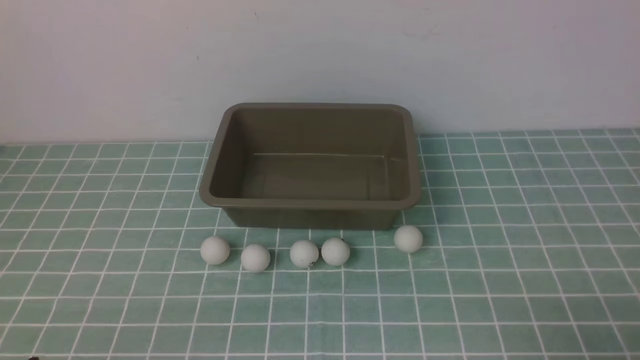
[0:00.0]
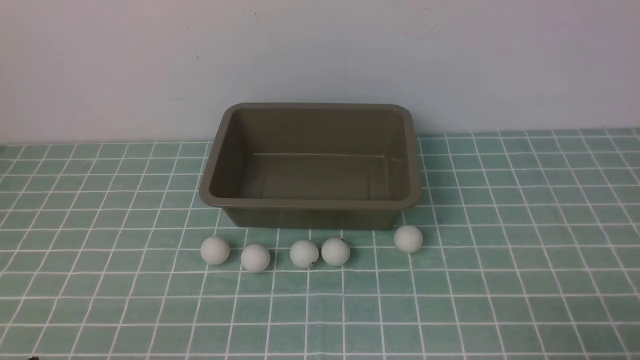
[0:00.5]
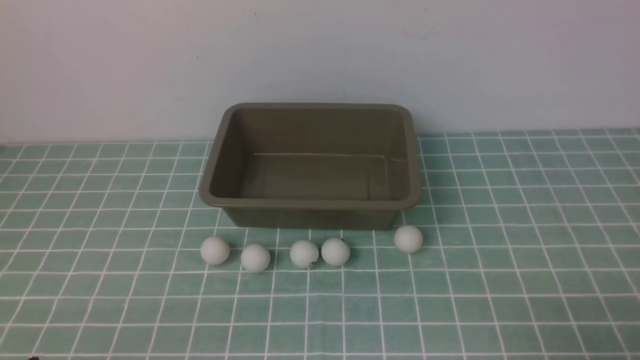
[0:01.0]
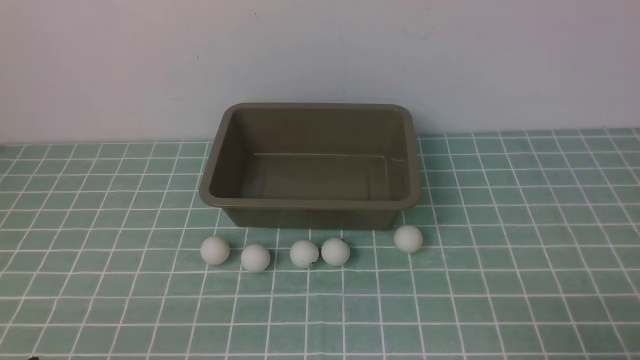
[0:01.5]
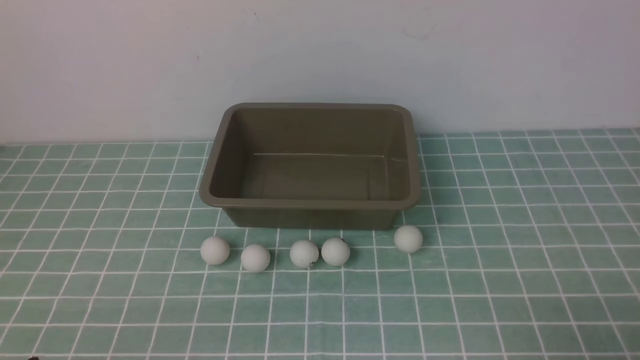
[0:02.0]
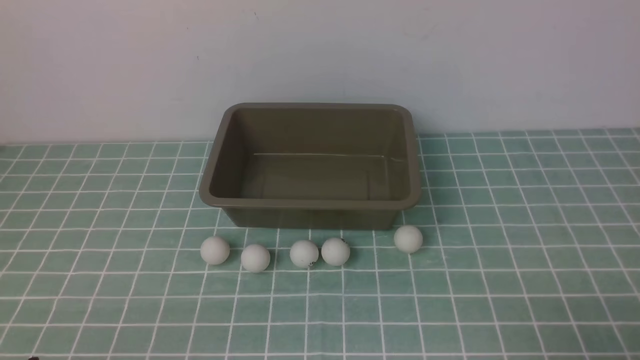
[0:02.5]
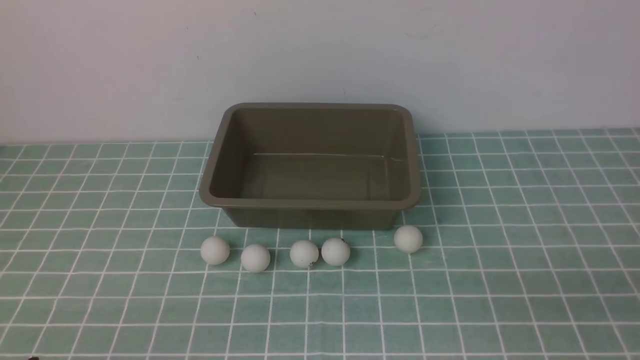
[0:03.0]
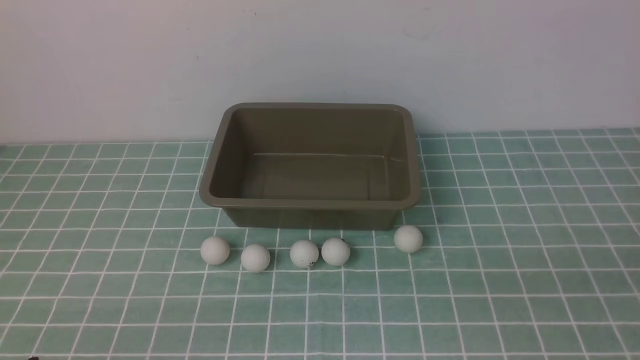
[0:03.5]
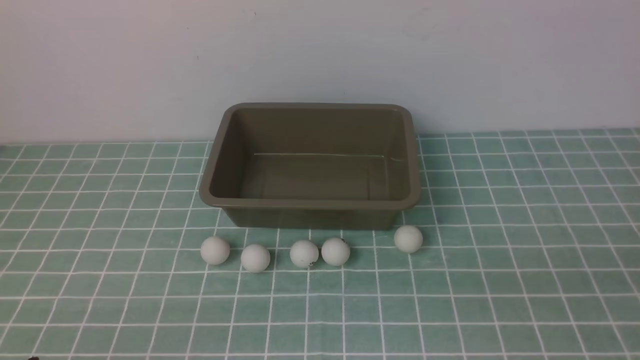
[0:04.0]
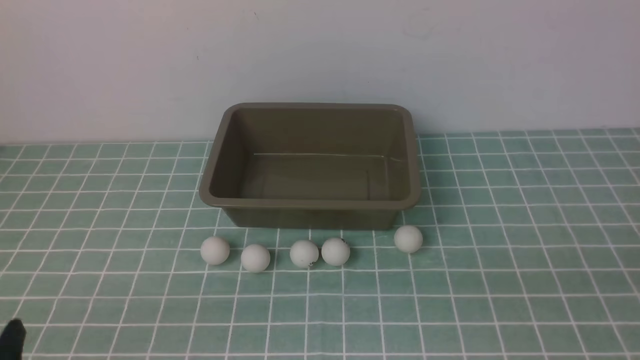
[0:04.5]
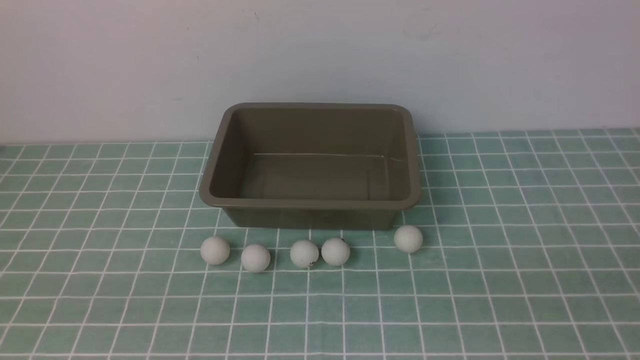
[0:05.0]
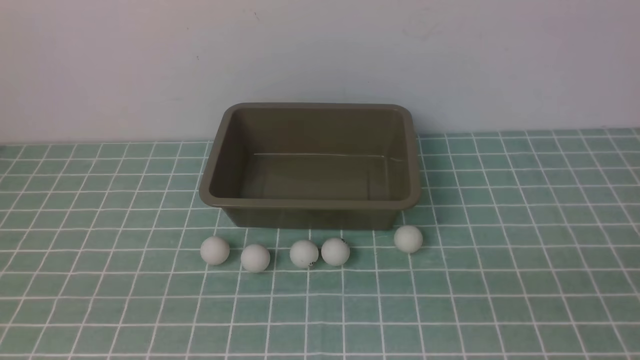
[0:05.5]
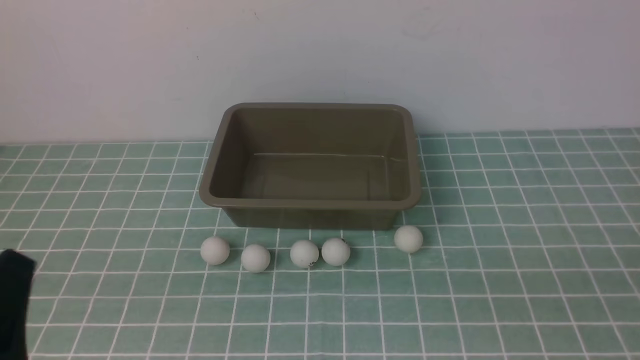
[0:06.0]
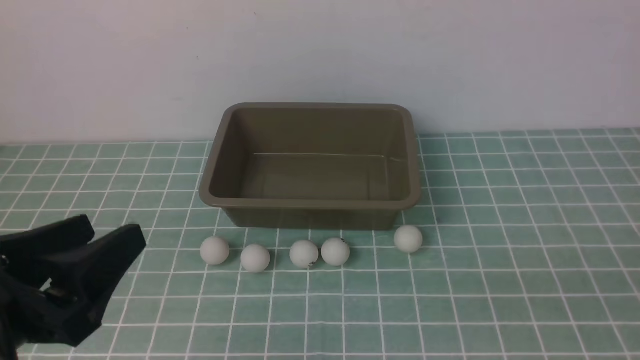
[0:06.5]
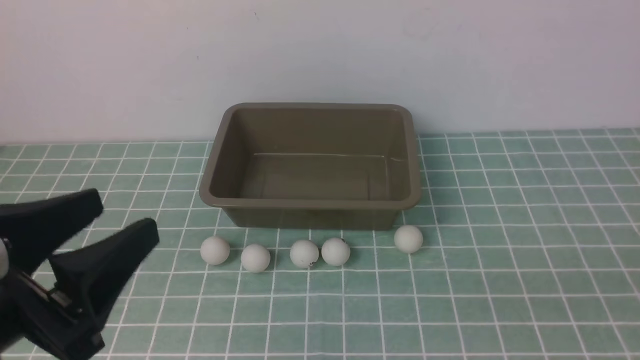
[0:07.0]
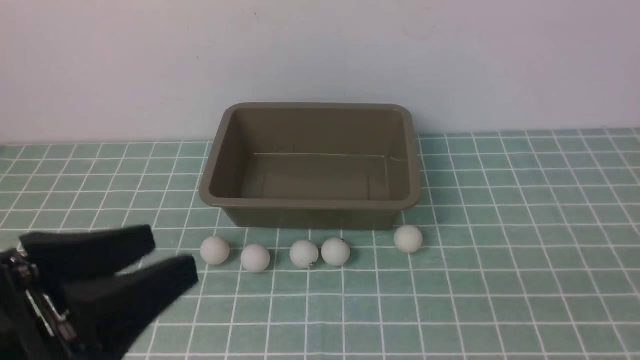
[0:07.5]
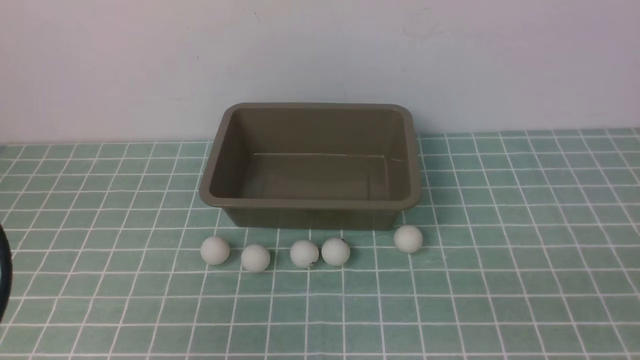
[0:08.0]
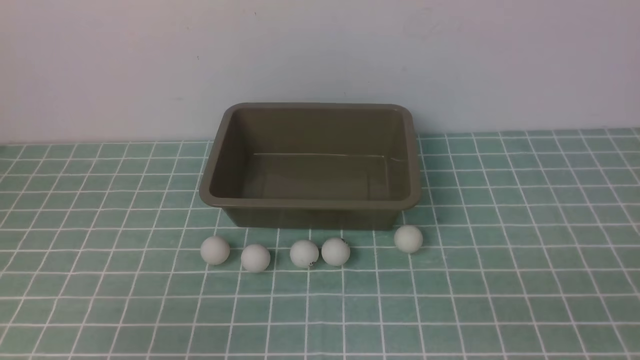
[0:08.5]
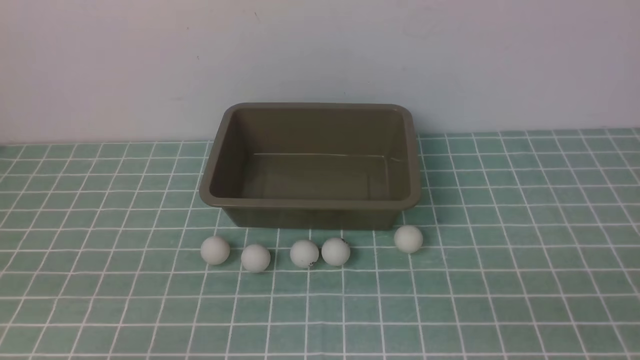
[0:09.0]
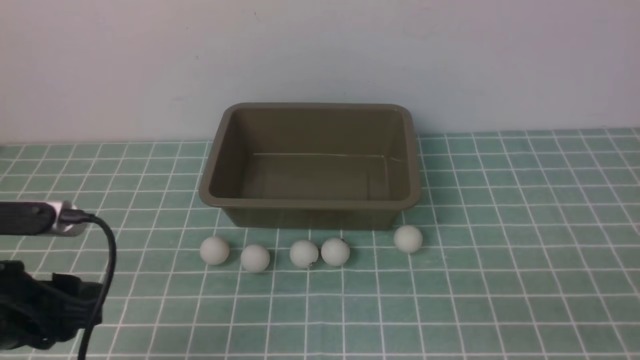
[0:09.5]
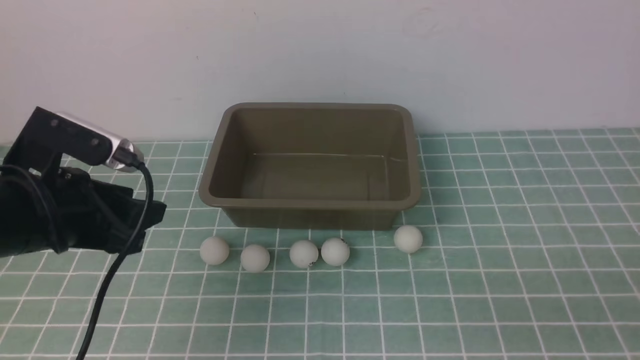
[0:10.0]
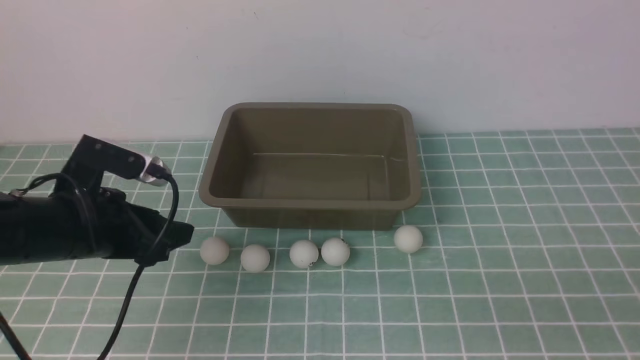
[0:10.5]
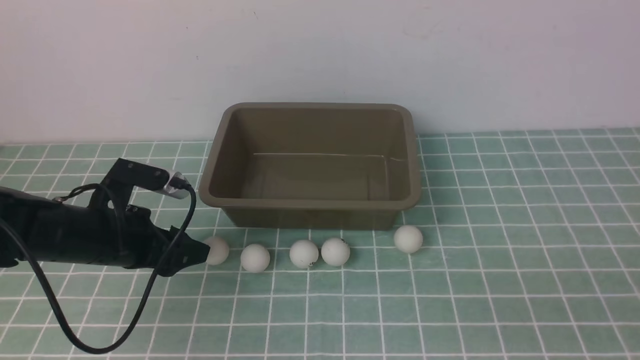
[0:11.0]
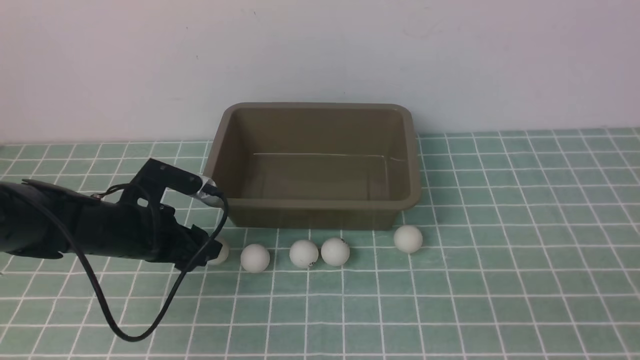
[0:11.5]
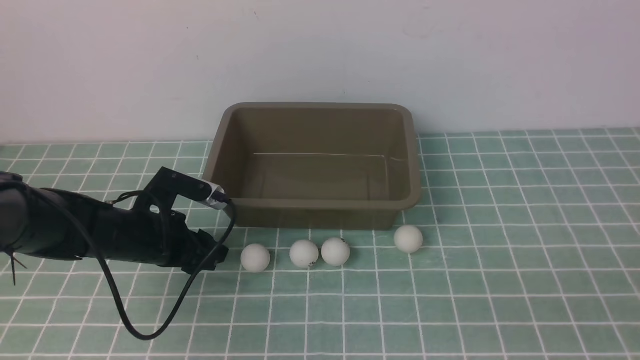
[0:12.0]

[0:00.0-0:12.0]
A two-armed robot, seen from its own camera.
0.0 to 2.0 s: Neither gripper changes place.
4.0 to 6.0 s: The left gripper is displaced upward by roughly 5 cm.
6.0 to 8.0 s: The left gripper heads upward and forward, covering roughly 10 cm.
8.0 to 10.0 s: The left gripper moves forward and downward, about 15 cm.
10.0 to 12.0 s: The left gripper goes about 15 cm downward and forward.

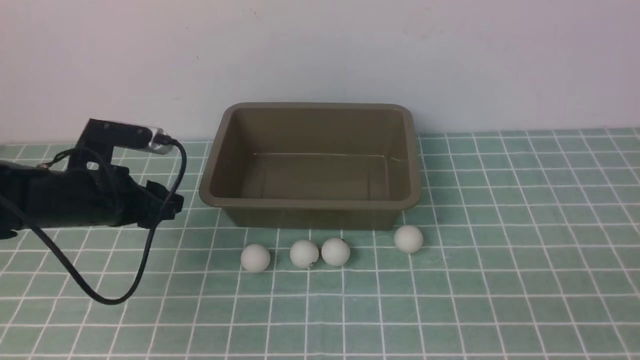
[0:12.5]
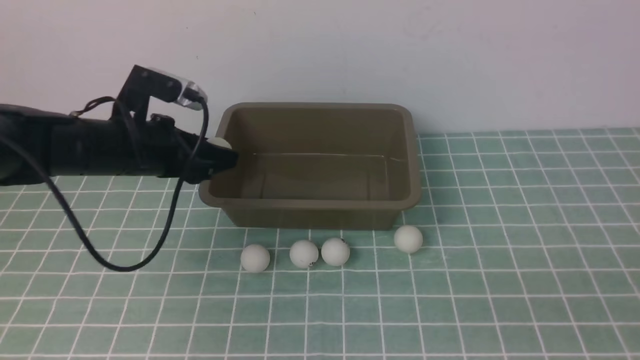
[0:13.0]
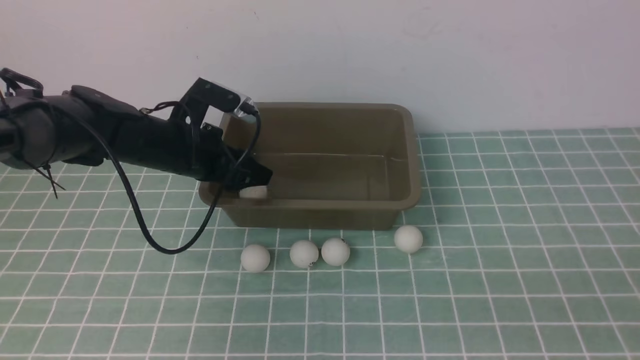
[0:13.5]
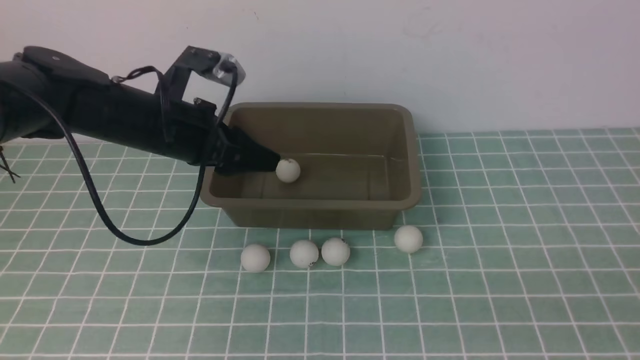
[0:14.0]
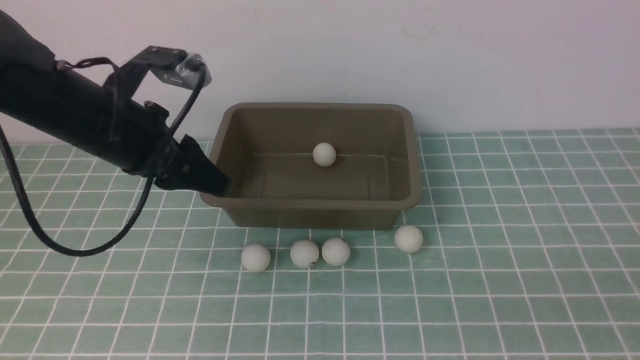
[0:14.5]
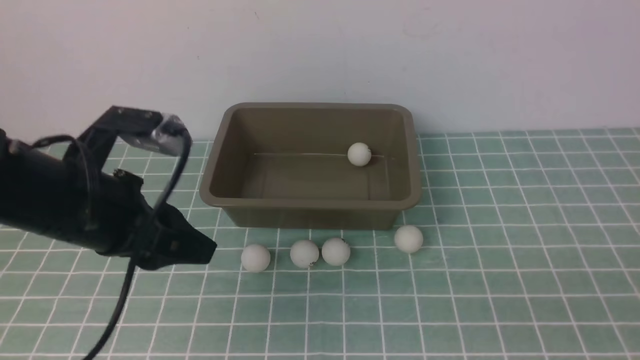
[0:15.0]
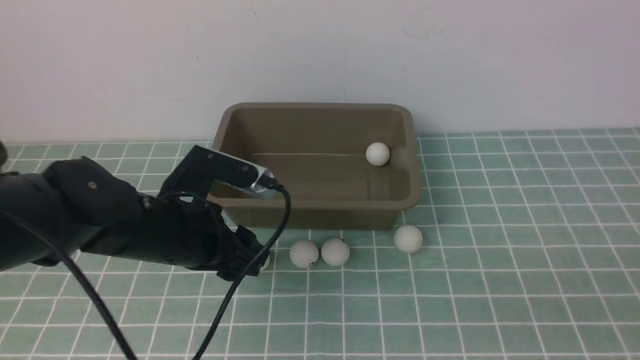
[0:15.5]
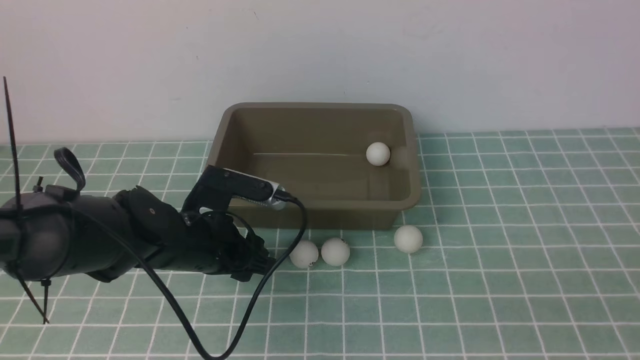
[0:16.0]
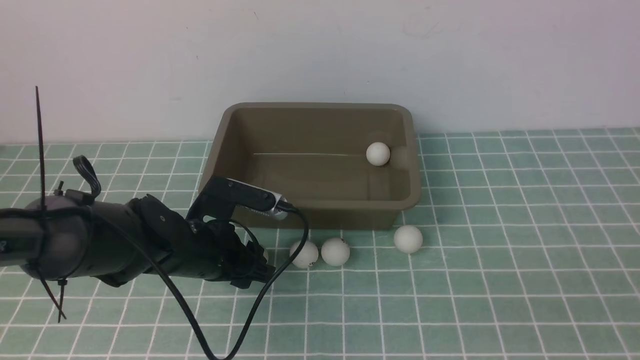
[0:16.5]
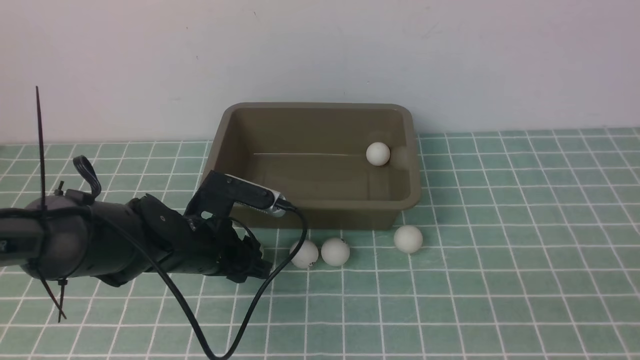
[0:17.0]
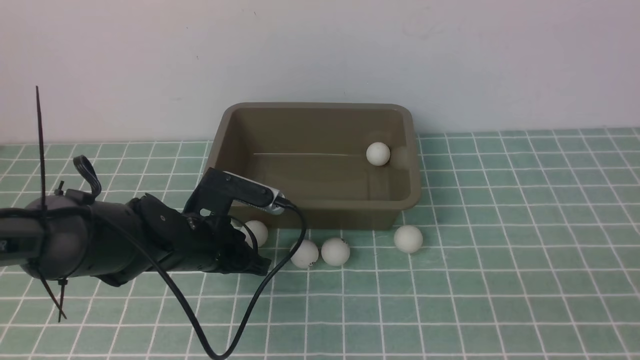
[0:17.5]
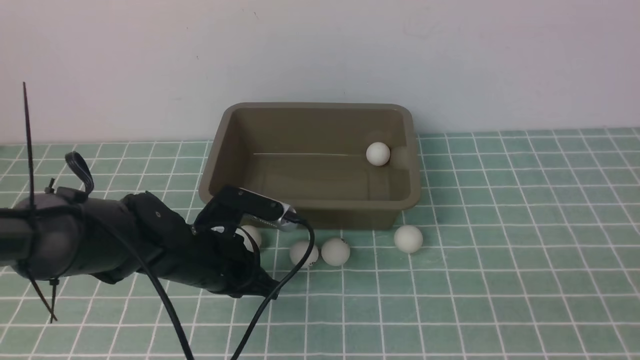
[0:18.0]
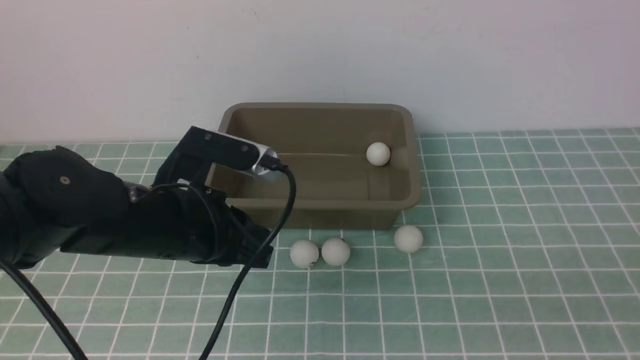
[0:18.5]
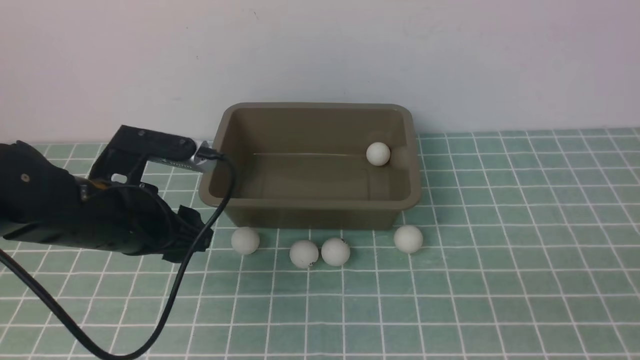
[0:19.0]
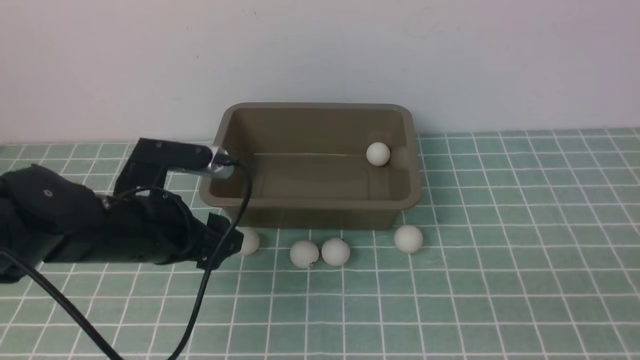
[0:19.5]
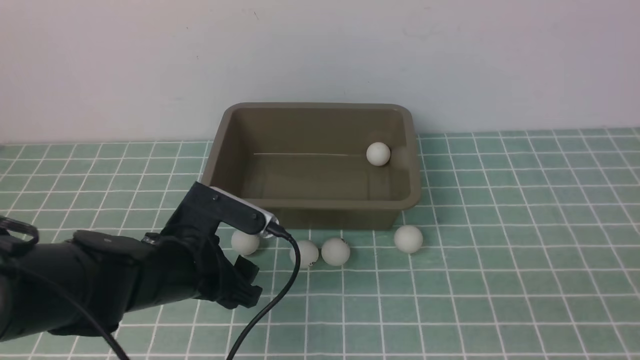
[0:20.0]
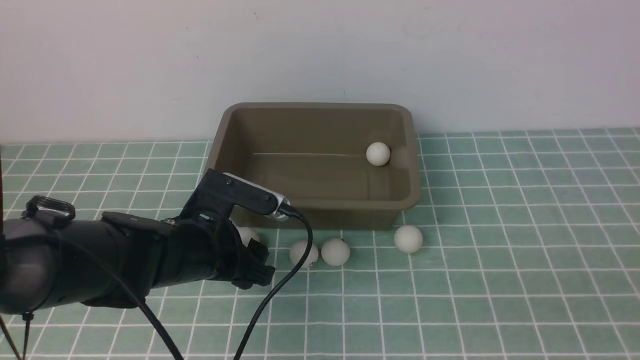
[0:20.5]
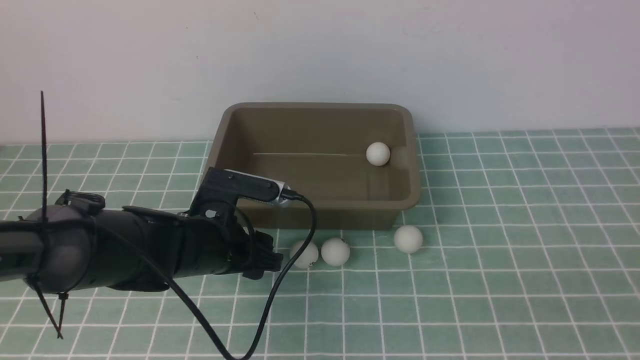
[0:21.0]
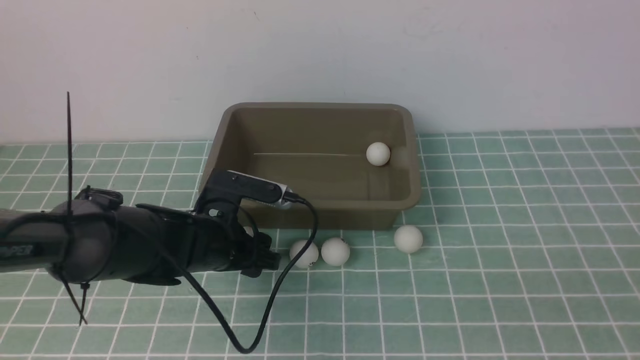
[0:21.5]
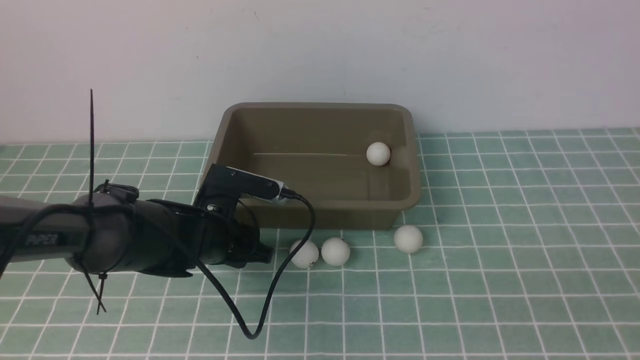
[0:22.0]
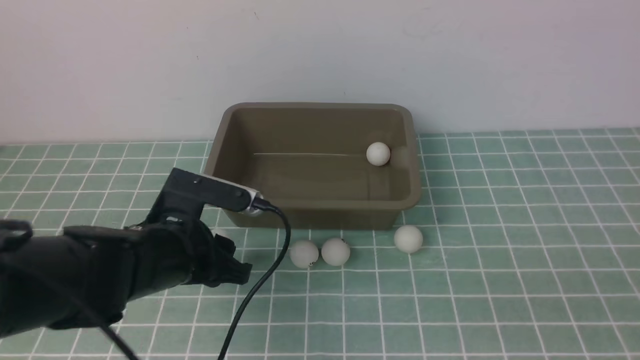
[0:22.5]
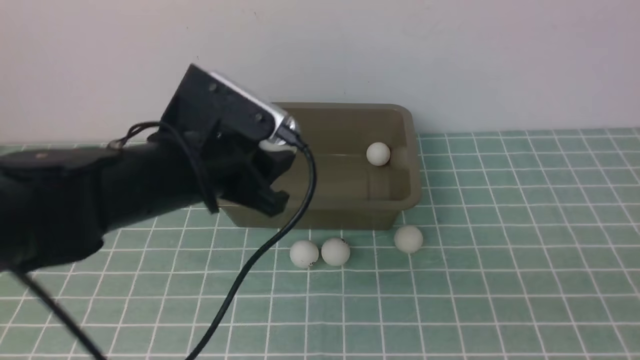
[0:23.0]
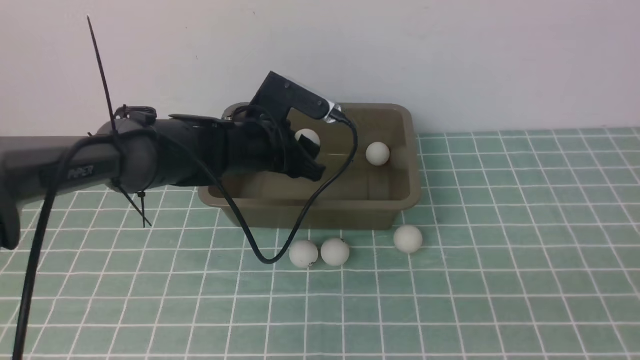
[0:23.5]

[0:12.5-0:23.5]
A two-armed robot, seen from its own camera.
Step, 12.5 to 13.5 s: use the left arm to put the table tennis ball into the box.
Step, 14.0 to 22.0 s: use the left arm to clamp the table tennis ball closest to it.
12.5 to 14.5 s: The left gripper shifts roughly 10 cm upward.
14.5 to 16.0 s: The left gripper moves downward and to the right, some 15 cm.
16.0 to 18.0 s: The left gripper closes its fingers.
18.0 to 20.0 s: The left gripper opens its fingers.
20.0 to 21.5 s: The left gripper changes place by approximately 5 cm.
21.5 to 23.5 s: The left gripper shifts some 10 cm forward and upward.
